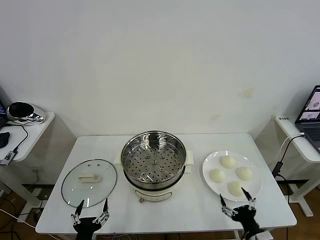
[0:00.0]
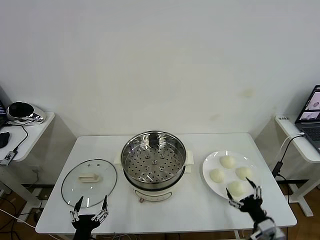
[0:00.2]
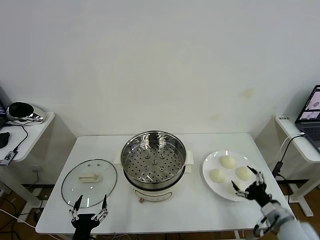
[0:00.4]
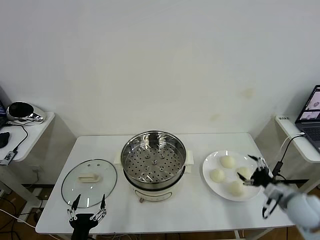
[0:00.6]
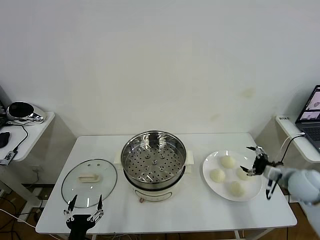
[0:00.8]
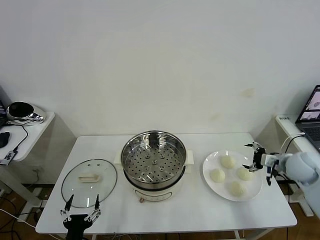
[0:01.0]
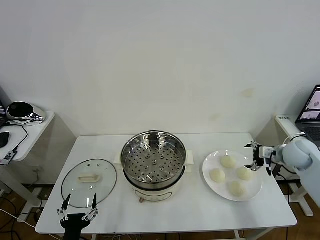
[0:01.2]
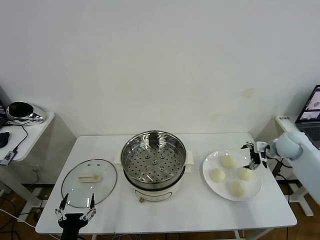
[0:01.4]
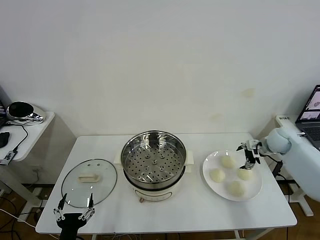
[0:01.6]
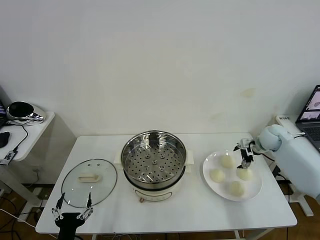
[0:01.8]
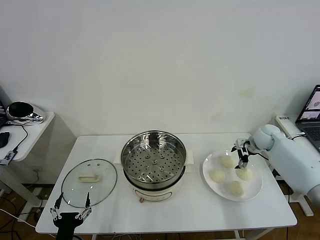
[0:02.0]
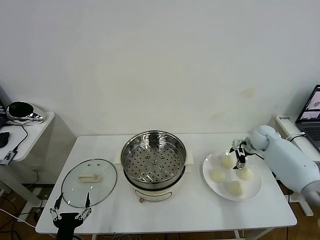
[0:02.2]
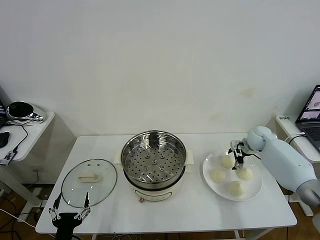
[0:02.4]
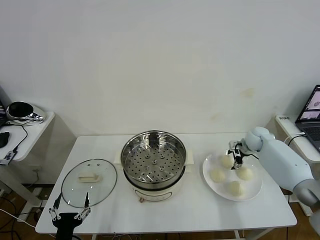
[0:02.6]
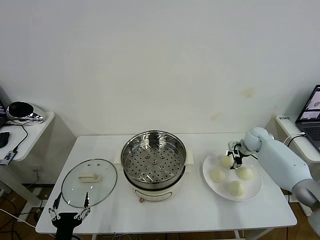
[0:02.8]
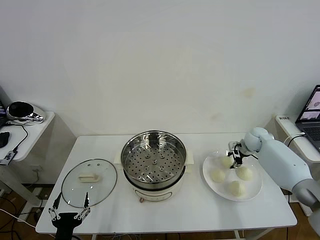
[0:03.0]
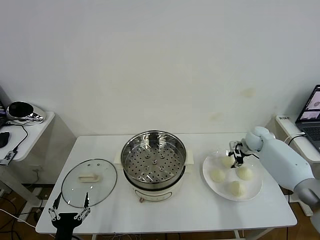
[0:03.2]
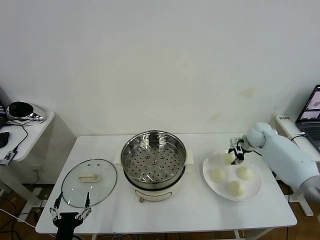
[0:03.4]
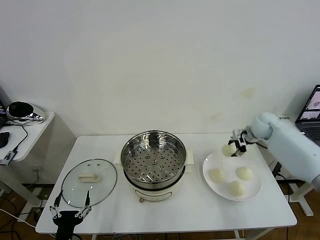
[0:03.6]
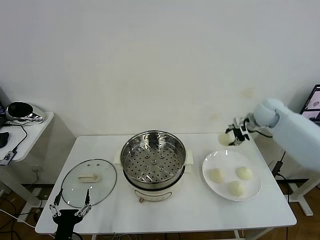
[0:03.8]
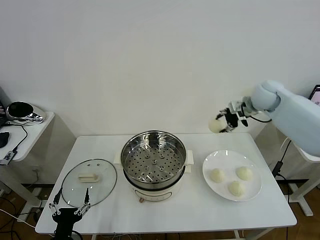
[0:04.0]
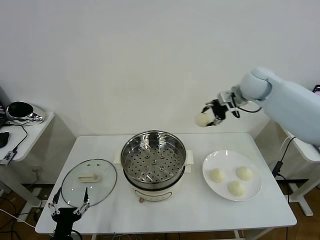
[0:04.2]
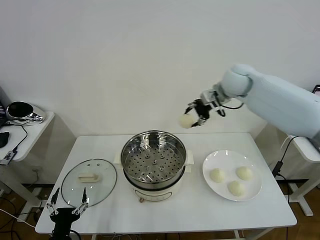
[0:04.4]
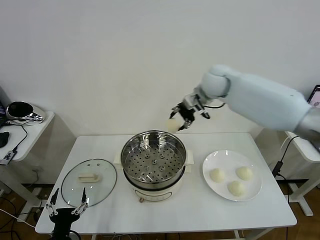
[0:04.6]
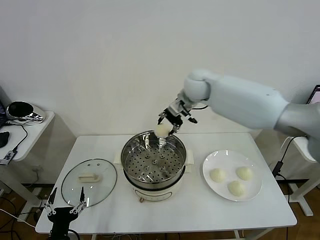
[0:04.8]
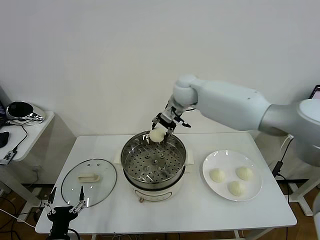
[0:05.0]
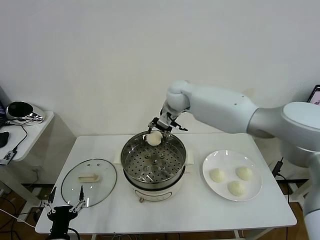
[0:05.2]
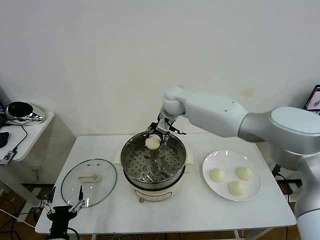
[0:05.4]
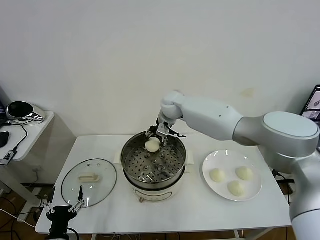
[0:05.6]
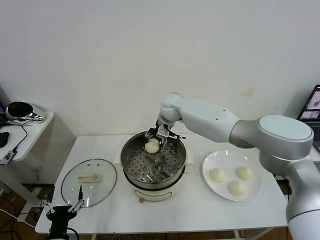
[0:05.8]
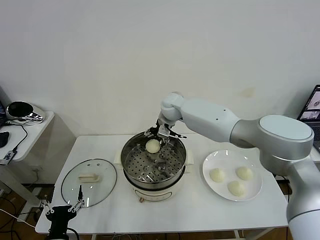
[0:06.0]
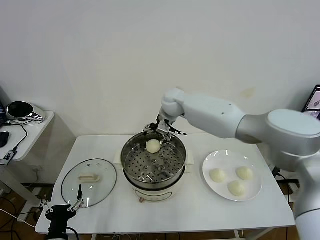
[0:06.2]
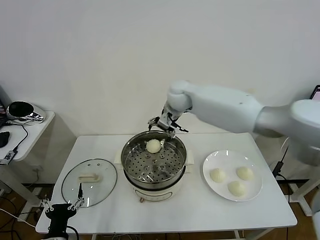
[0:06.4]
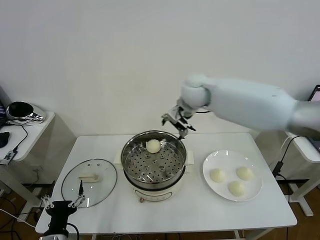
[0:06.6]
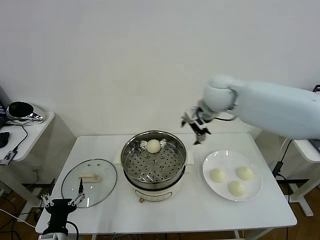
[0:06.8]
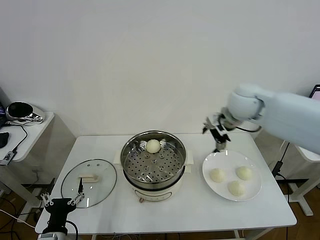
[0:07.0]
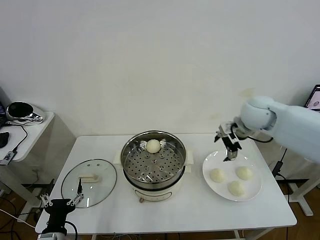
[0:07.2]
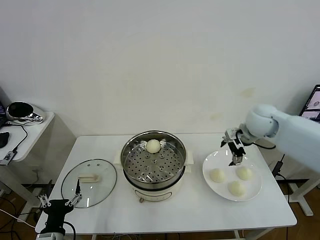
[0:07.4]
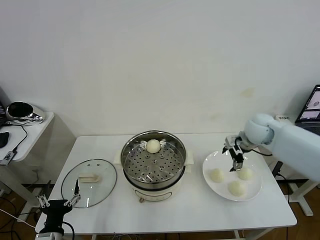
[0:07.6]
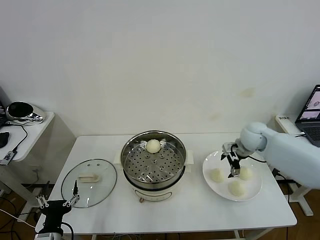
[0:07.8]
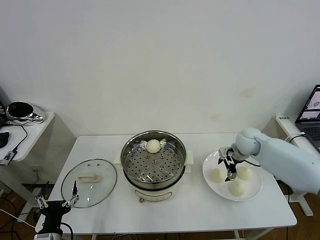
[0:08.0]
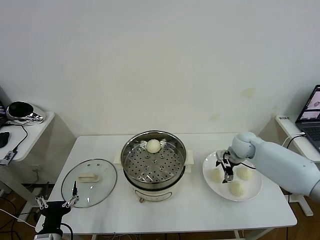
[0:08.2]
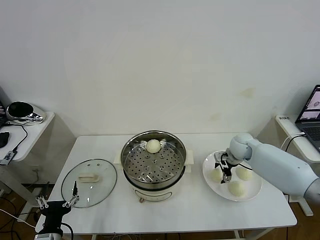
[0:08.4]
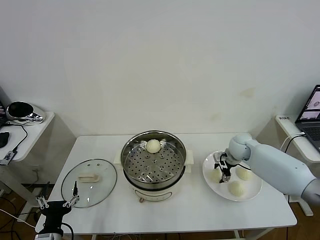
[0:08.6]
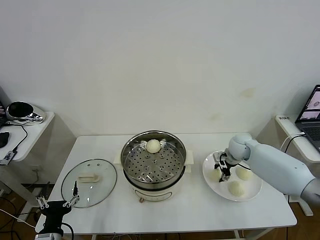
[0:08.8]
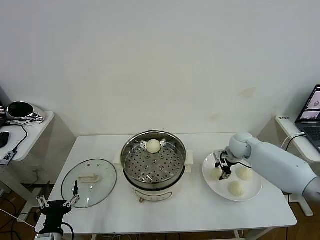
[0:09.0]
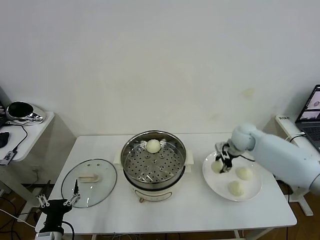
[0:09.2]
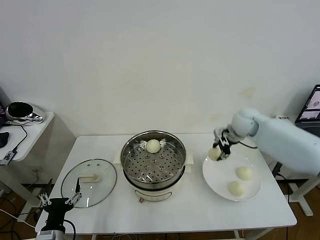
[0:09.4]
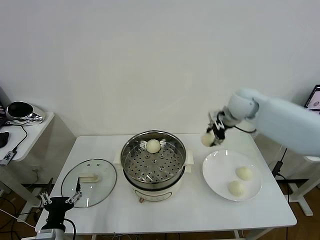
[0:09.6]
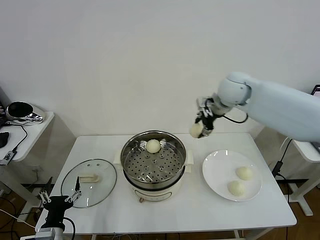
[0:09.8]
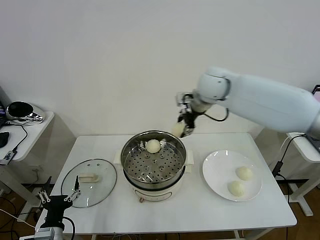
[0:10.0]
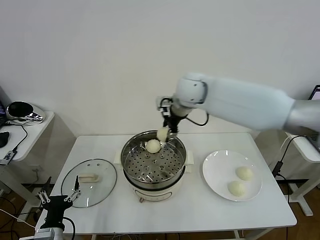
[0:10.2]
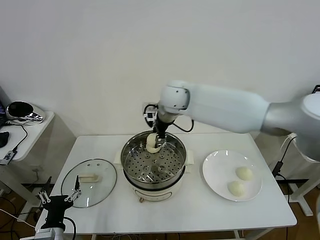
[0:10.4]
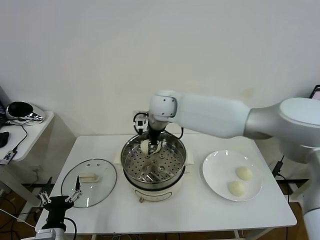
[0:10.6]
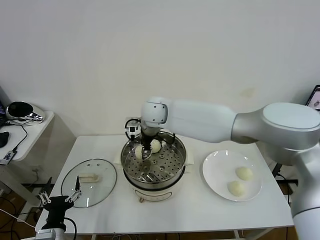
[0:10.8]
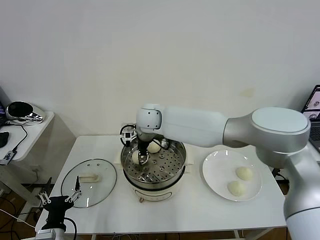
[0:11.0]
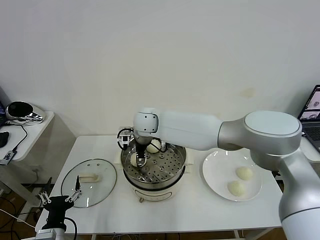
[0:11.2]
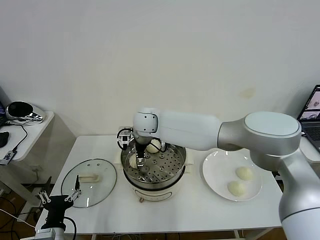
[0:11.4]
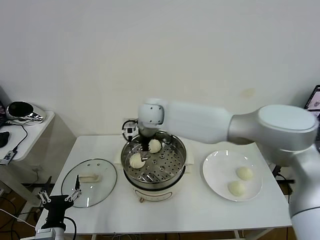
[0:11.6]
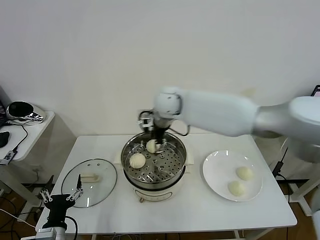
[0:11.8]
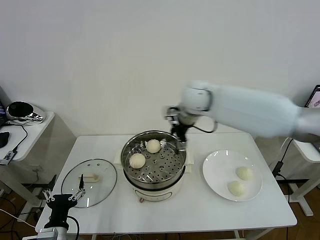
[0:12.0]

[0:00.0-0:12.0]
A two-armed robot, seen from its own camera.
Task of the whole recording: take steamed baozi put them in steamer then cover it.
Step, 0:00.0 to 0:02.8: Grasp the baozi in the plate with right gripper.
Step, 0:03.2 to 0:06.2: Place the baozi on the steamer with right gripper.
Step, 0:06.4 to 0:08.8: Grasp the baozi in the plate with right gripper.
Step, 0:09.0 to 0:11.4: Place the baozi on the steamer with right gripper.
0:01.6 to 0:03.0: The right gripper shifts by some 5 cm, and closes.
0:03.0 to 0:04.4: The right gripper is displaced upward and to the left by approximately 35 cm.
0:04.4 to 0:06.0: The right gripper goes about 15 cm to the left and downward, and opens.
0:06.0 to 0:07.6: The right gripper travels to the right by roughly 30 cm.
0:07.6 to 0:09.0: The right gripper moves downward, some 5 cm, and closes its fingers.
0:09.0 to 0:10.4: The right gripper moves to the left and upward, about 35 cm.
0:10.4 to 0:12.0: The right gripper goes some 15 cm to the right, and opens its fingers.

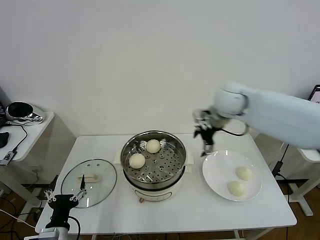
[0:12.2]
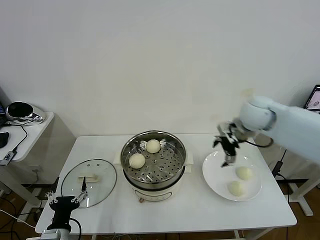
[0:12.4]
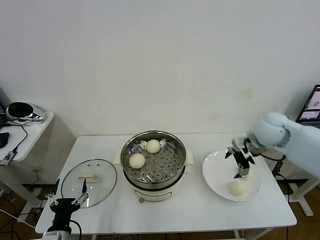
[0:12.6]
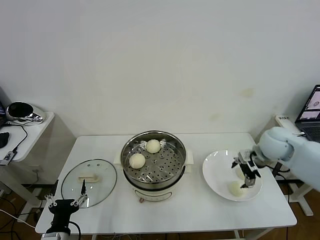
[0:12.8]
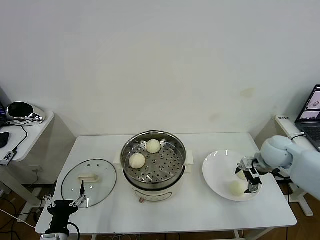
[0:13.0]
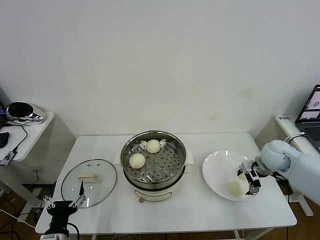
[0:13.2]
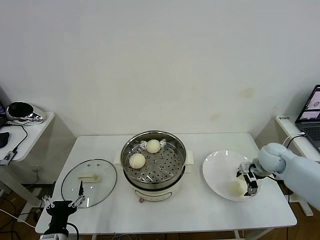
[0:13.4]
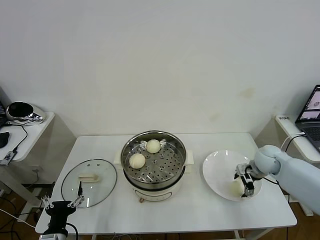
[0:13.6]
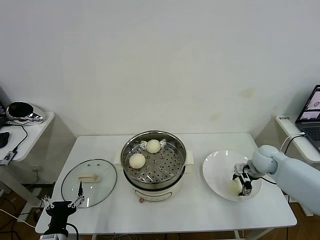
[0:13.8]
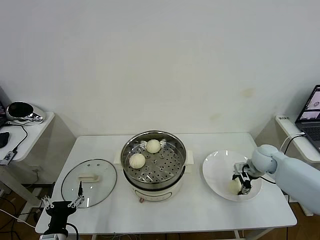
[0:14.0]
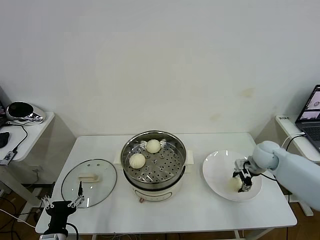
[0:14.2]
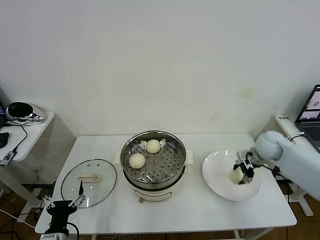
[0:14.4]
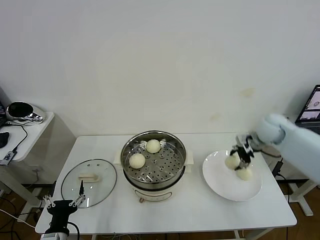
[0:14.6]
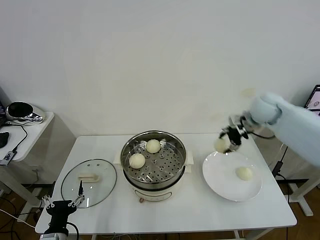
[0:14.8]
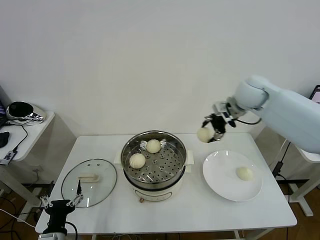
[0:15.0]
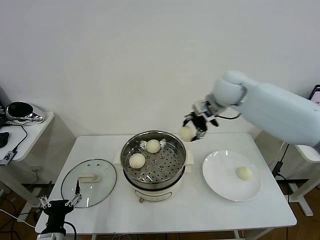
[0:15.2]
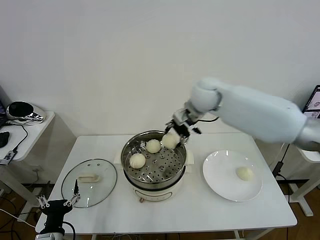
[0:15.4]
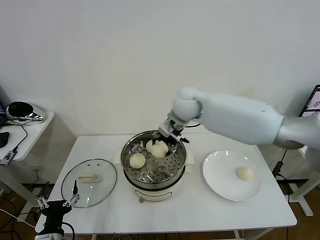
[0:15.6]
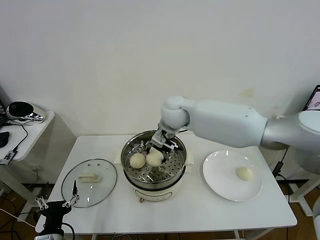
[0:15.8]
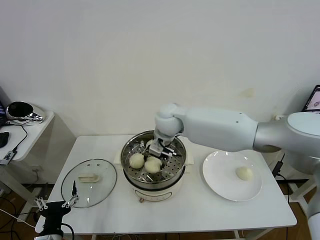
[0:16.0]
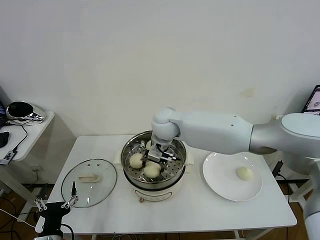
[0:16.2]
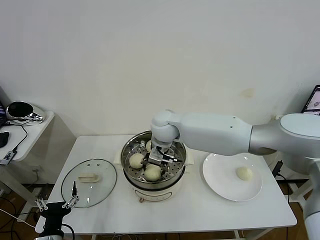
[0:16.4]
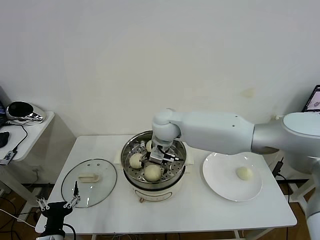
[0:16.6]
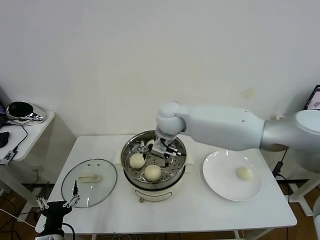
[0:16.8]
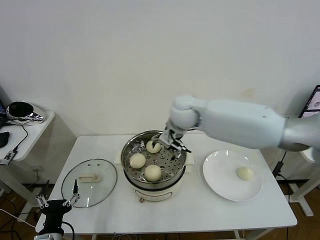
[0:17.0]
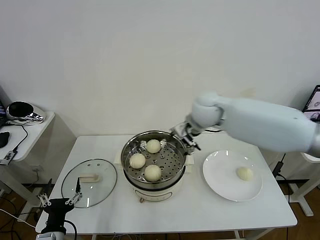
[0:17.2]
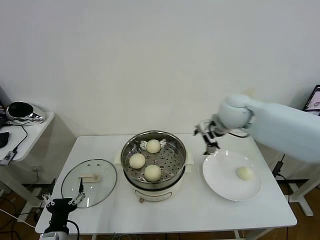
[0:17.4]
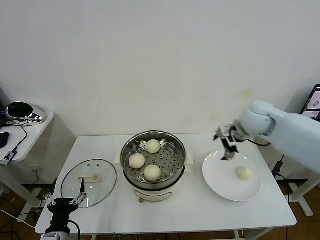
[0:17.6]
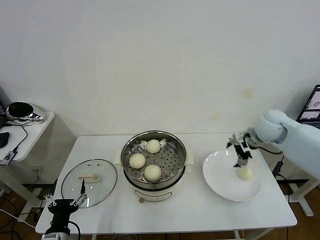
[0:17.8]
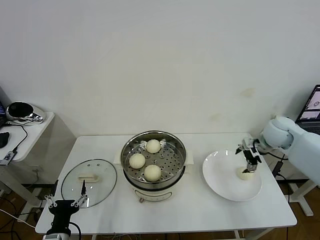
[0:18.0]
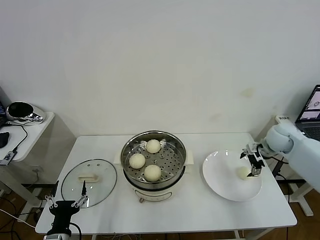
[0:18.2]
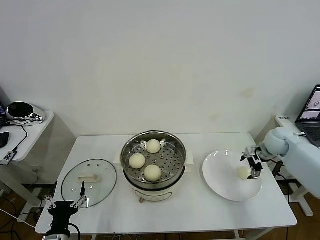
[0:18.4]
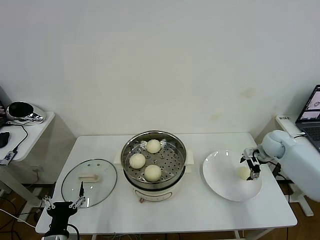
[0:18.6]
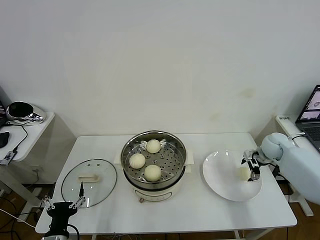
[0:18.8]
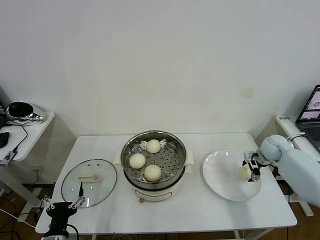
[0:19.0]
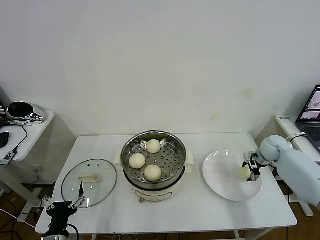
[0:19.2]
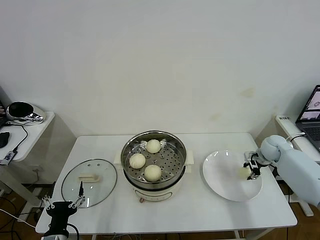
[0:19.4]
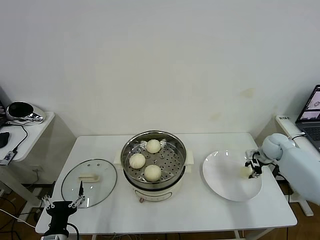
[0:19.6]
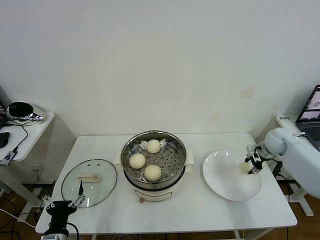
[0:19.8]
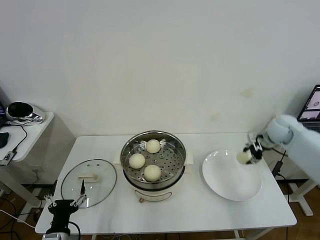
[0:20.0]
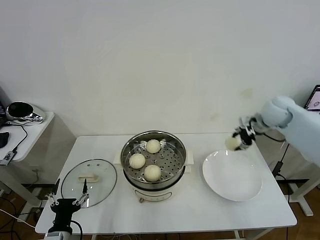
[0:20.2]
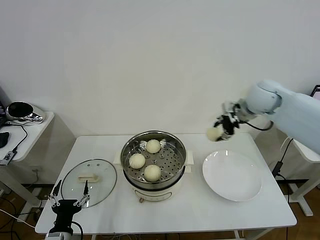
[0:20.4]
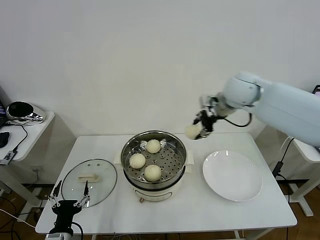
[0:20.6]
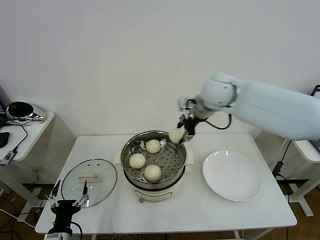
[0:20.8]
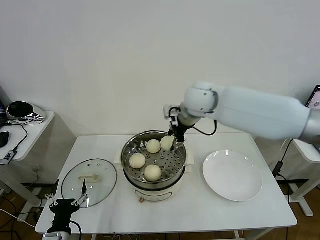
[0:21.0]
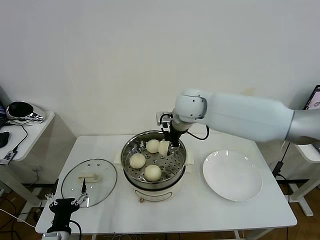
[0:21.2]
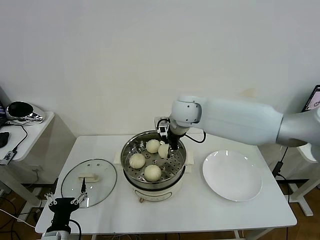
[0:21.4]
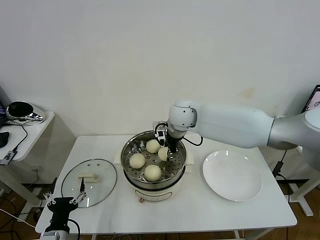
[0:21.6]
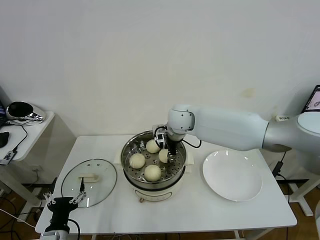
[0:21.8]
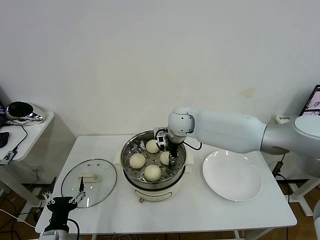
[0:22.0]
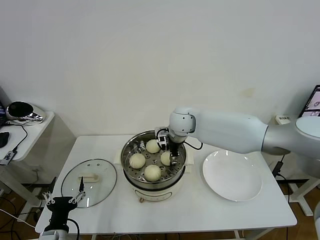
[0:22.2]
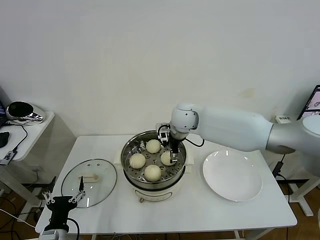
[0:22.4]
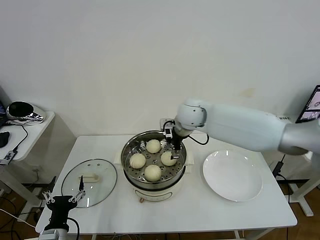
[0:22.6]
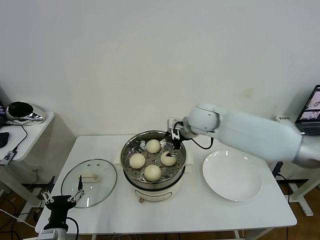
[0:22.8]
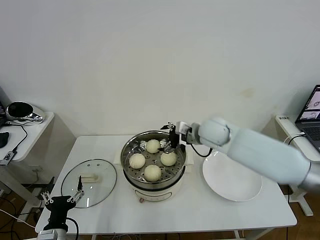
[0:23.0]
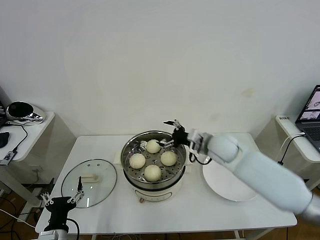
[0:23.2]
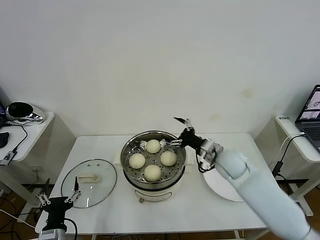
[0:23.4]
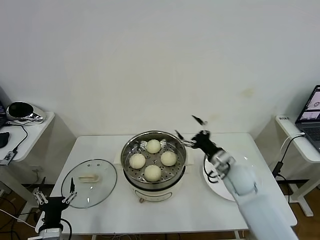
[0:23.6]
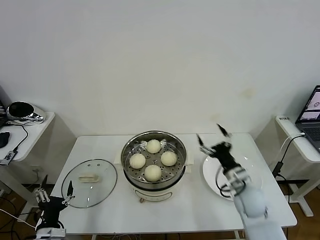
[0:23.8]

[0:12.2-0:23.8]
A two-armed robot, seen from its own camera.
Task of the whole recording: take steamed baozi put them in steamer then cover it.
Step, 0:12.2 to 0:14.0: Grasp the baozi in the plate with right gripper.
Step, 0:14.2 to 0:16.6: Place the baozi on the steamer with right gripper.
Step, 0:16.8 to 0:19.4: Grasp the baozi in the plate with right gripper.
Step, 0:19.6 to 0:22.4: Place the baozi on the steamer with right gripper.
0:12.2 to 0:13.6: The right gripper travels downward and to the right by approximately 25 cm.
0:13.6 to 0:15.0: The right gripper travels upward and to the left by approximately 30 cm, and closes up.
0:15.0 to 0:16.6: The right gripper moves to the left and downward, roughly 25 cm, and opens its fingers.
0:16.6 to 0:18.0: The right gripper heads to the right, covering about 40 cm.
0:18.0 to 0:19.4: The right gripper moves downward, some 10 cm, and closes.
0:19.4 to 0:21.0: The right gripper travels to the left and upward by roughly 40 cm.
0:21.0 to 0:22.4: The right gripper is displaced downward by approximately 5 cm, and opens up.
0:22.4 to 0:23.8: The right gripper goes about 35 cm backward, to the right and downward.
